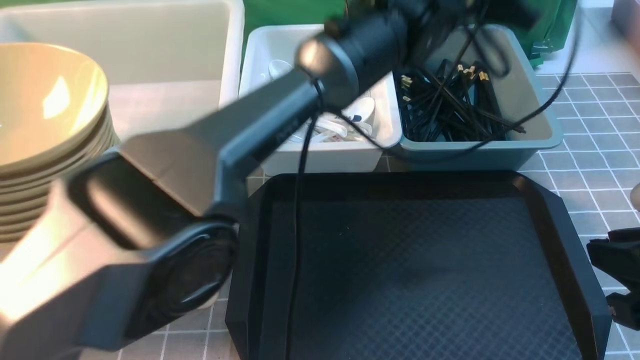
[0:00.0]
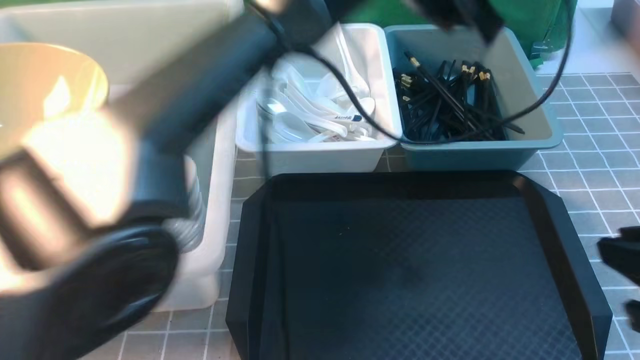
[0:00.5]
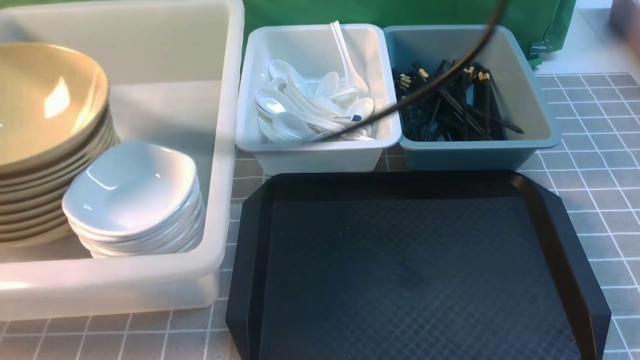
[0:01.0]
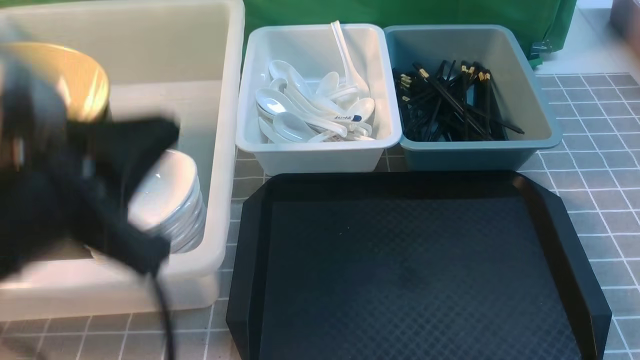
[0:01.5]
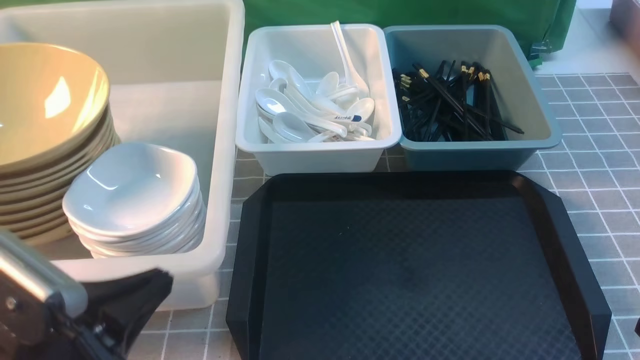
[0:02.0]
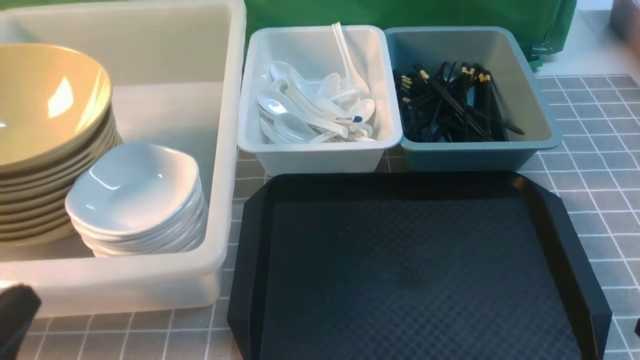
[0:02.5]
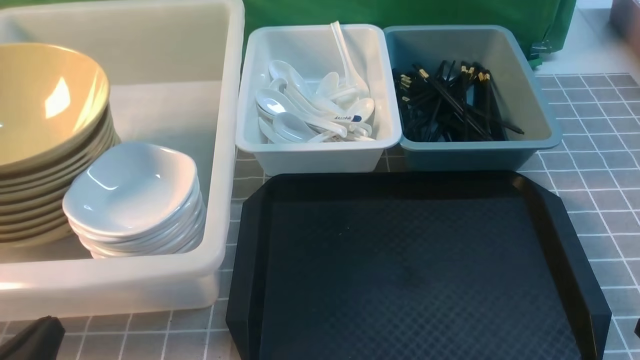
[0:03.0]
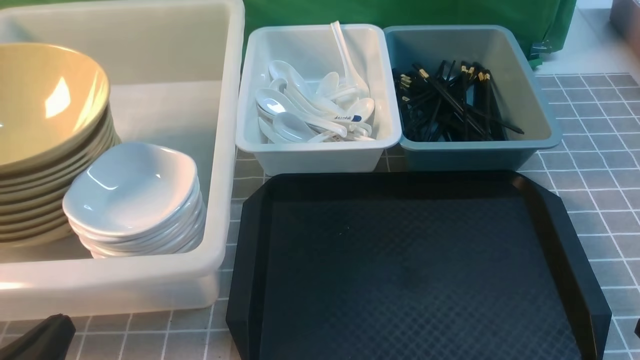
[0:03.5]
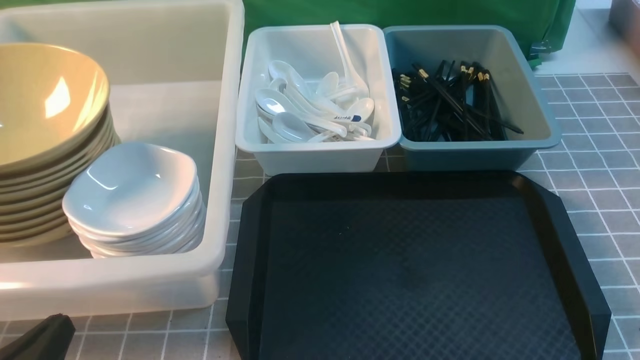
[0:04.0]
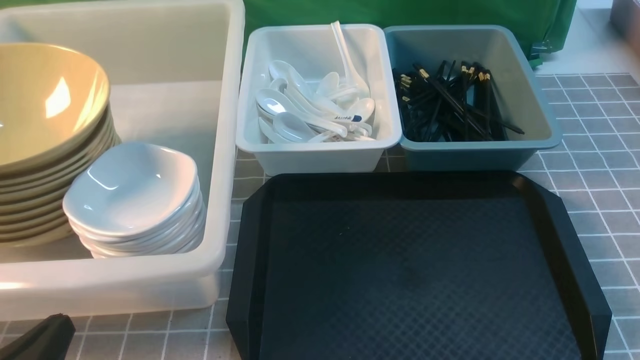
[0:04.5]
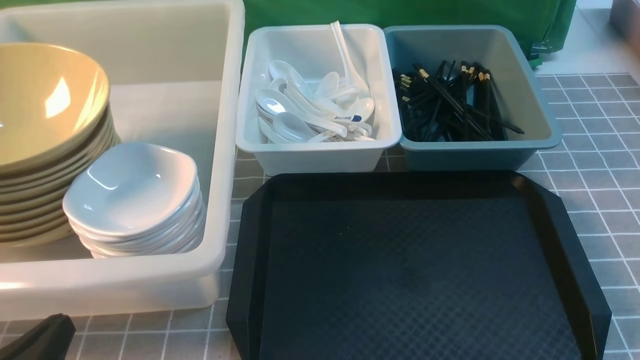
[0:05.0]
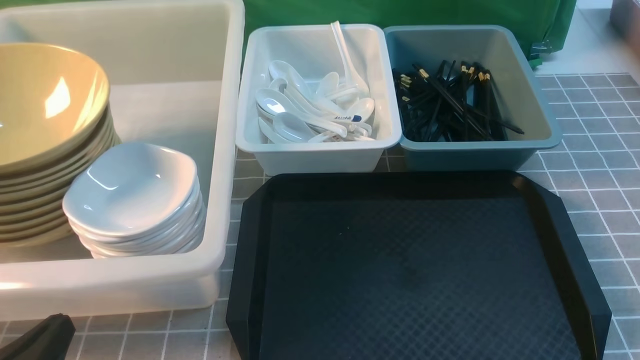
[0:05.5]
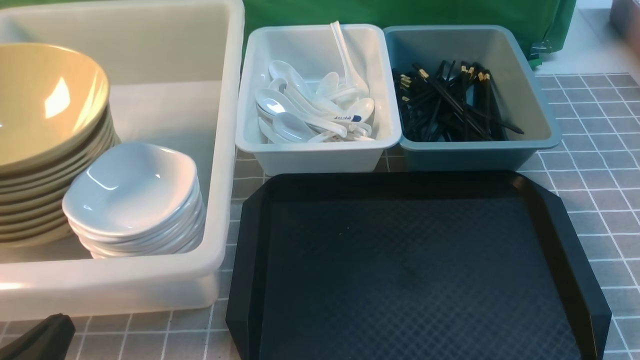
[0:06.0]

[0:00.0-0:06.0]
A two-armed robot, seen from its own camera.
Task of the whole recording: on grey table put chopsticks spoon bowls plates into blue grey white boxes.
0:00.0 to 0:02.0: The left gripper heads backward and to the left, covering some 40 cm; the right gripper moves backward and downward, some 10 cm, and closes.
0:02.0 to 0:04.0: The left gripper moves downward and to the left, approximately 10 cm.
